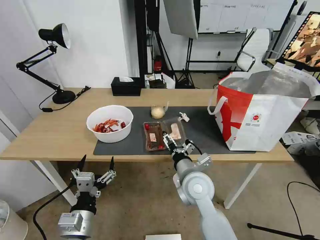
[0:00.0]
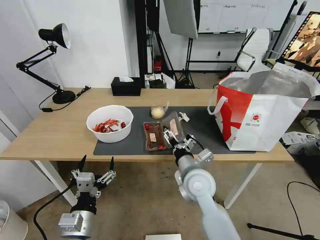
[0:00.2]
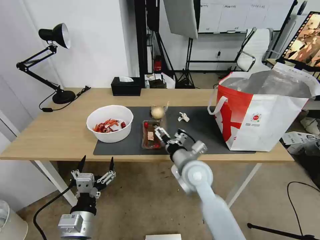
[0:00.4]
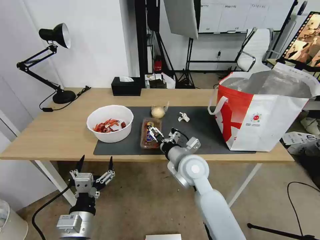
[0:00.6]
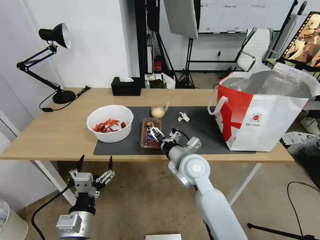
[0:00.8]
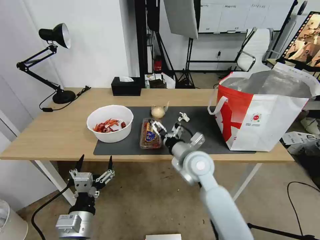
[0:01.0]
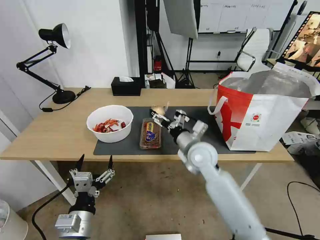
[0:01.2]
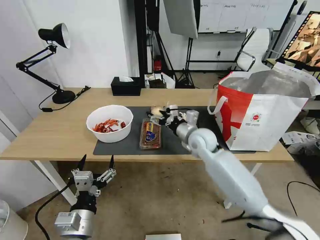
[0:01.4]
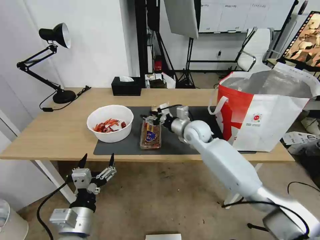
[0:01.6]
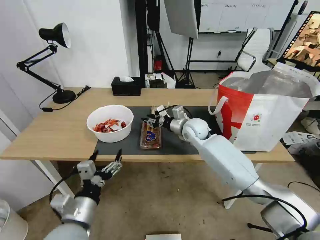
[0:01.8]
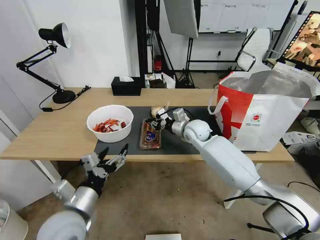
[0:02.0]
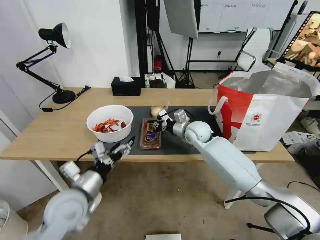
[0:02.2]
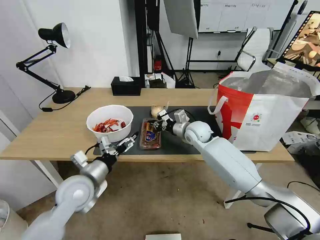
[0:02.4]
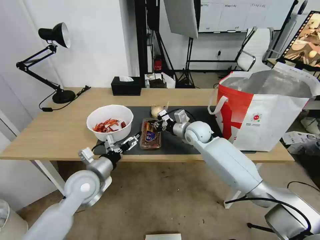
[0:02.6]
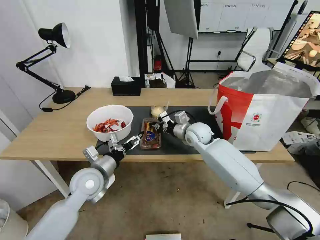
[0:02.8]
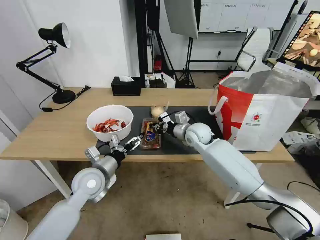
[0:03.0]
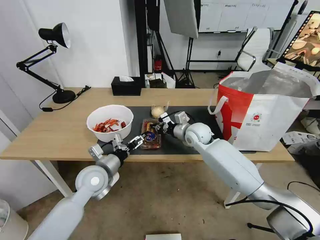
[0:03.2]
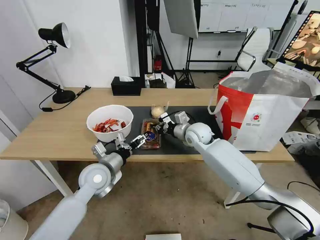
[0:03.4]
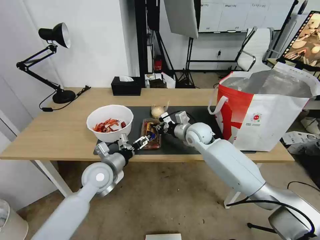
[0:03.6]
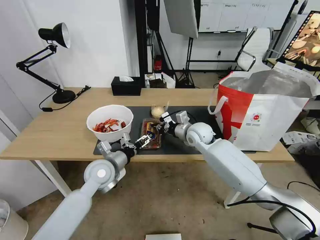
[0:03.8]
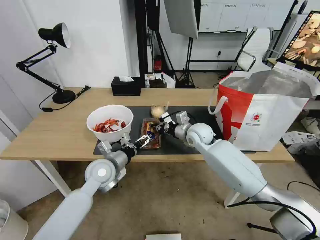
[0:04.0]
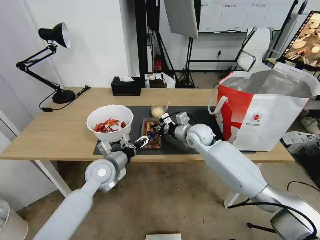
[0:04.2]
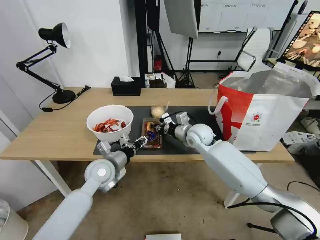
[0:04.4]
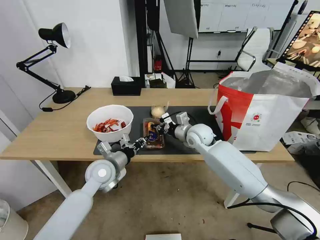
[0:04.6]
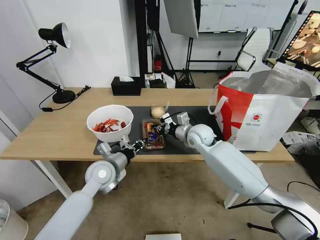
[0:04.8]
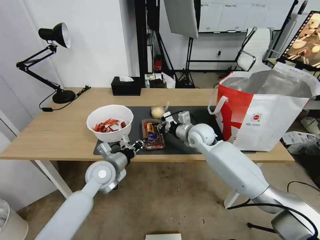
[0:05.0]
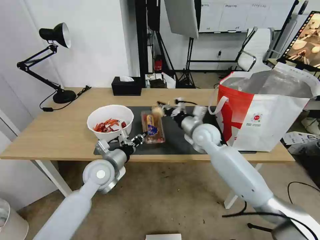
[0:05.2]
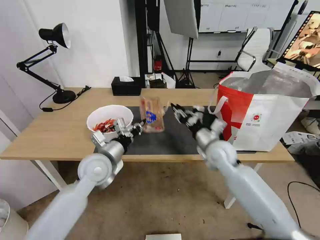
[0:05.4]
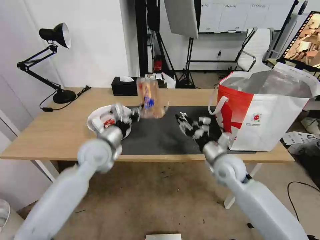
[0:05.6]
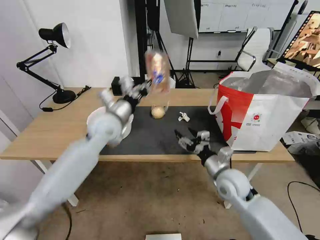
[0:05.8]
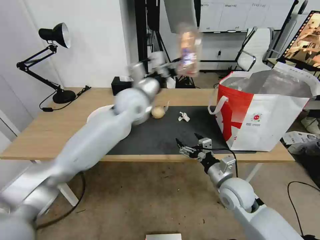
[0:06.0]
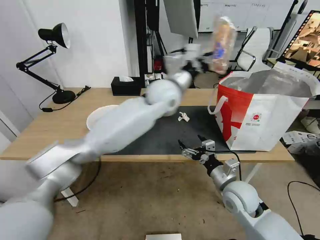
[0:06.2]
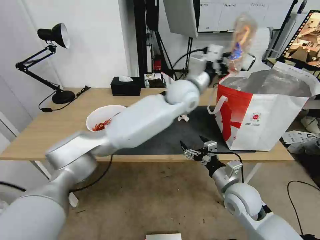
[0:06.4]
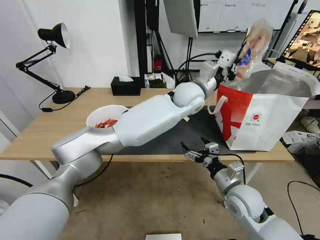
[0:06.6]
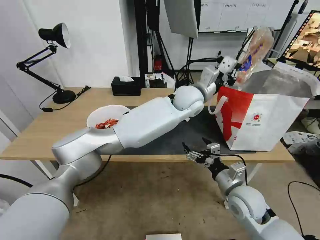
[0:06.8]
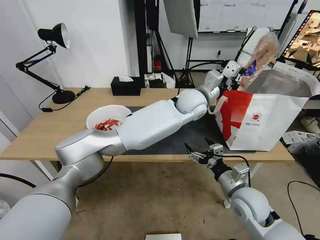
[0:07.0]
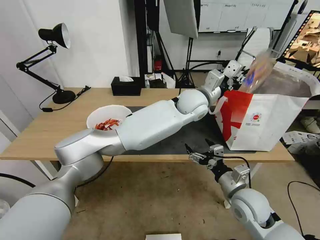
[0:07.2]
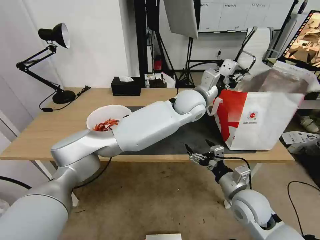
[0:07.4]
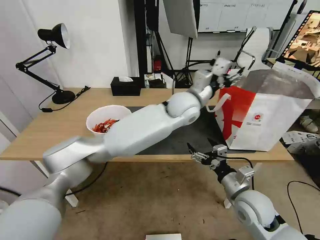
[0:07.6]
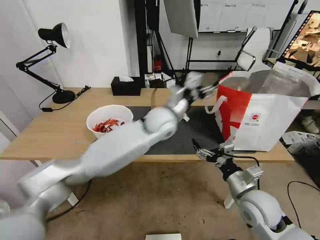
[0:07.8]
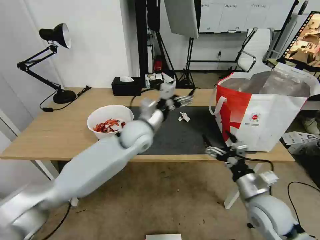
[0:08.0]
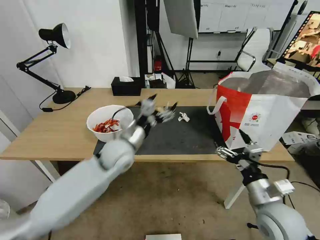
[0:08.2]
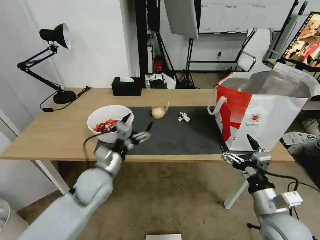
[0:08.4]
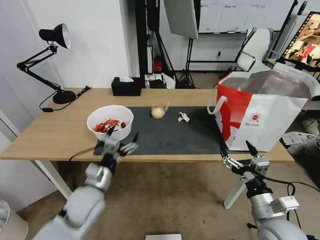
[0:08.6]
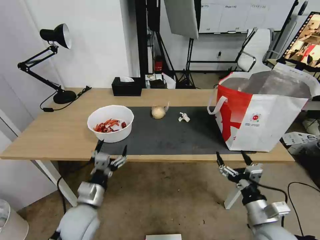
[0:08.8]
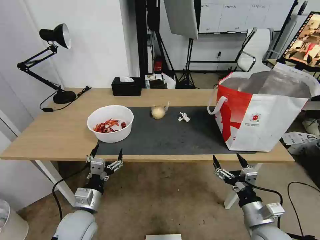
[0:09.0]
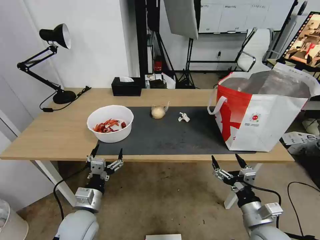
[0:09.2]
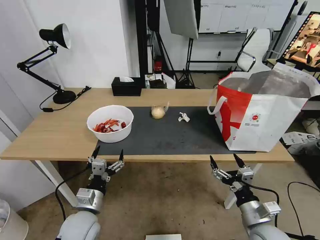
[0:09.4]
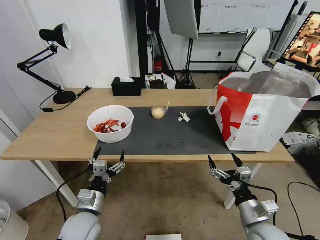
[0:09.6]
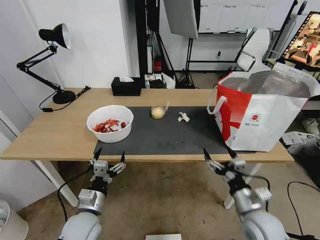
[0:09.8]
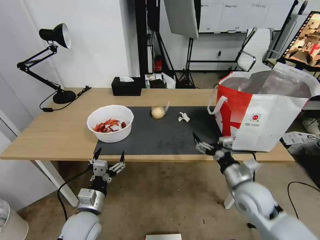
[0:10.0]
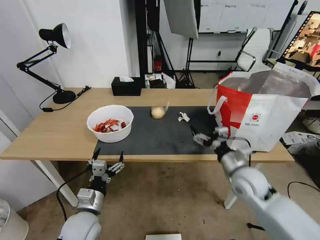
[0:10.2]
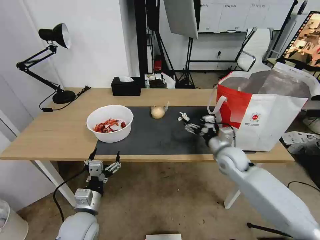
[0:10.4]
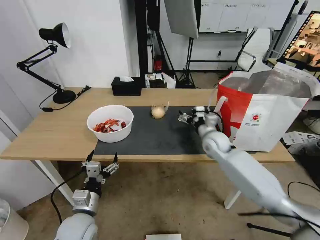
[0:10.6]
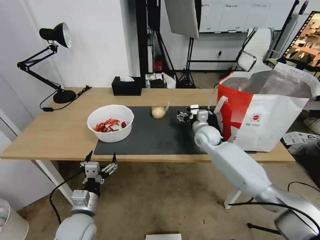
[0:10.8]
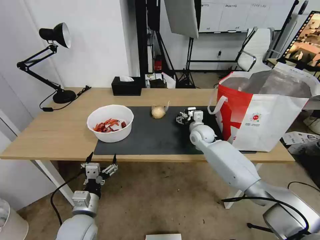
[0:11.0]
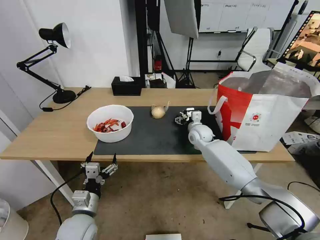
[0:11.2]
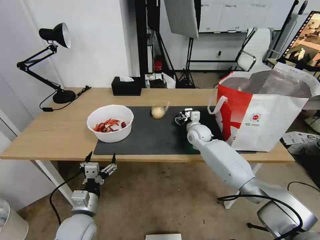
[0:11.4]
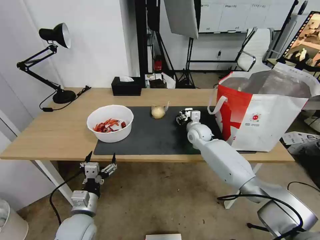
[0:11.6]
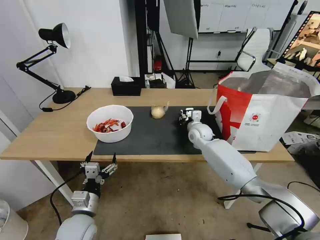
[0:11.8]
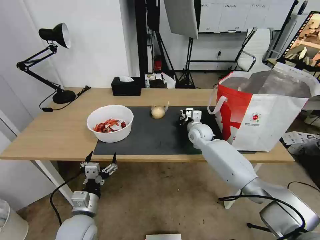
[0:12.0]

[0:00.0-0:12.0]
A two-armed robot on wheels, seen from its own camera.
Task of the whole recording: Pick up the trash from the table and place it into the takeout bag.
0.0 to 1.6 s: The right gripper moves forward, approximately 20 cm, and closes up.
1.6 to 3.0 s: The right gripper closes up. Meanwhile the left gripper is displaced forward by some 20 cm.
3.0 to 4.4 s: The left gripper closes.
4.4 to 6.0 s: The left gripper is displaced upward, forward and to the right by roughly 25 cm, and closes up, while the right gripper heads backward and to the right, covering roughly 20 cm, and opens.
6.0 to 7.6 s: The right gripper ends up approximately 5 cm from where it was. The left gripper goes roughly 15 cm to the right, and opens.
7.6 to 9.0 s: The right gripper is displaced backward by roughly 10 cm. Meanwhile the left gripper shifts about 50 cm to the left, backward and downward.
9.0 to 10.4 s: The right gripper shifts roughly 20 cm forward.
10.4 to 12.0 s: The right gripper heads forward and to the left, covering about 15 cm, and closes up.

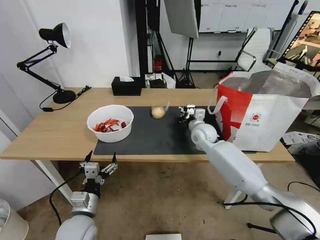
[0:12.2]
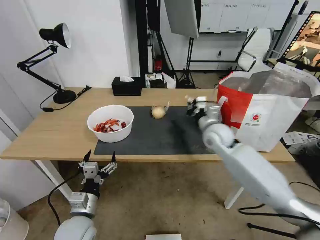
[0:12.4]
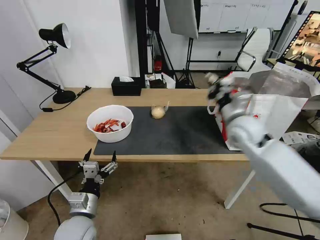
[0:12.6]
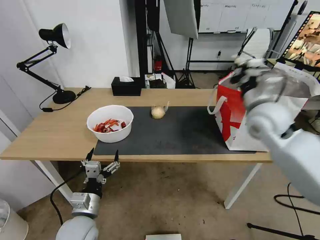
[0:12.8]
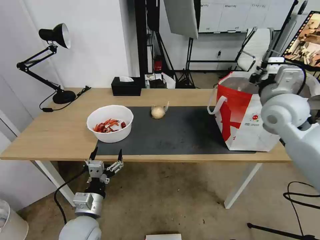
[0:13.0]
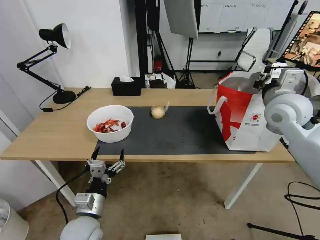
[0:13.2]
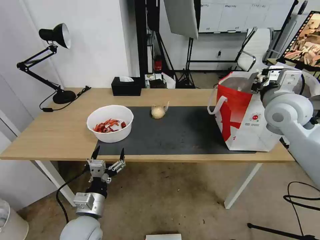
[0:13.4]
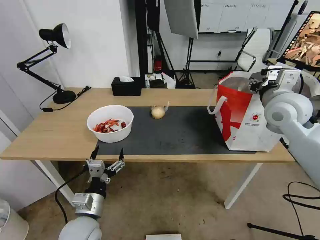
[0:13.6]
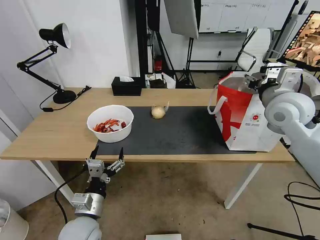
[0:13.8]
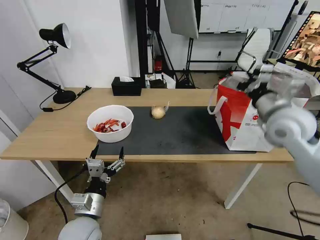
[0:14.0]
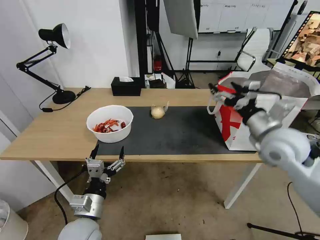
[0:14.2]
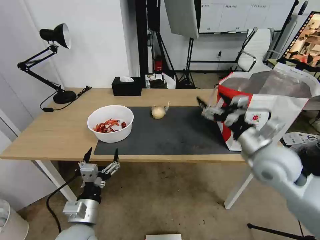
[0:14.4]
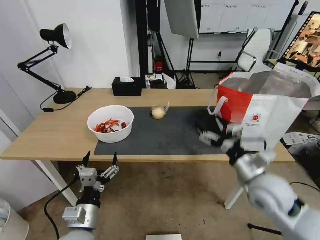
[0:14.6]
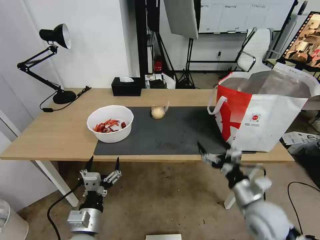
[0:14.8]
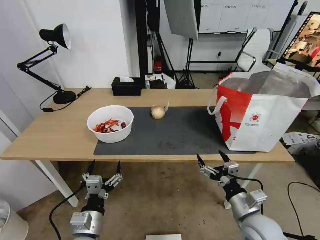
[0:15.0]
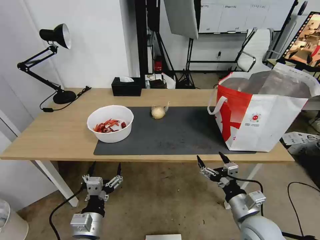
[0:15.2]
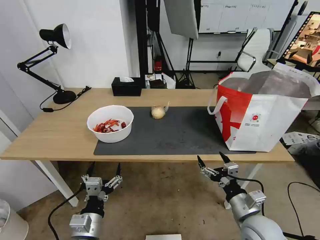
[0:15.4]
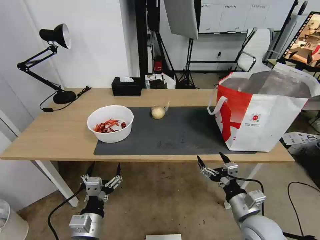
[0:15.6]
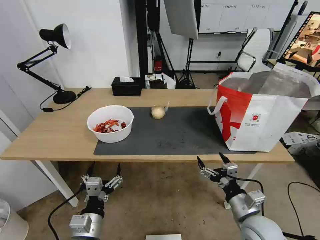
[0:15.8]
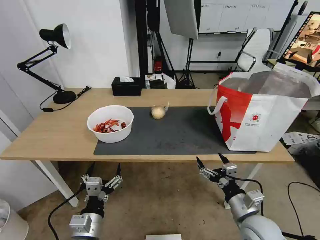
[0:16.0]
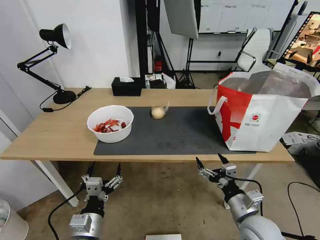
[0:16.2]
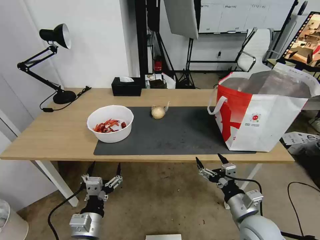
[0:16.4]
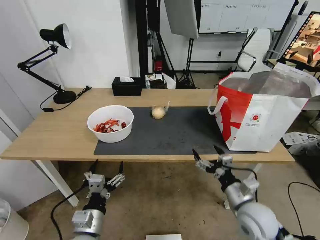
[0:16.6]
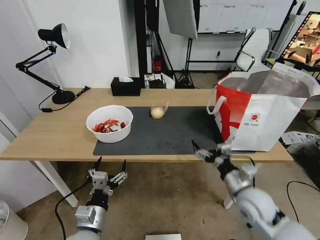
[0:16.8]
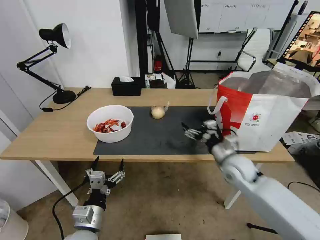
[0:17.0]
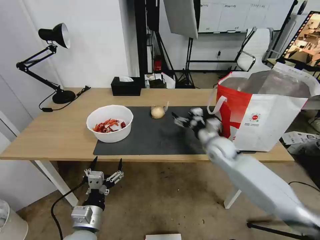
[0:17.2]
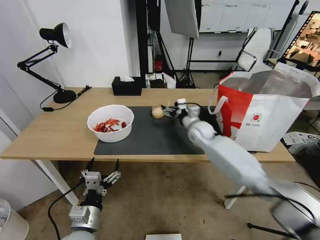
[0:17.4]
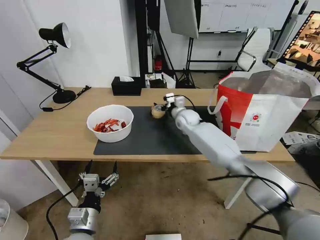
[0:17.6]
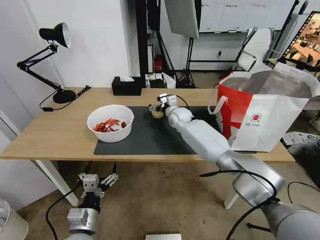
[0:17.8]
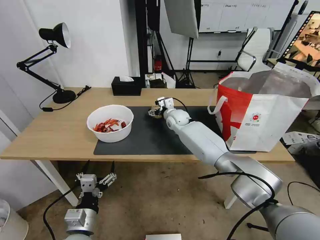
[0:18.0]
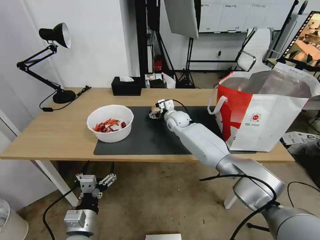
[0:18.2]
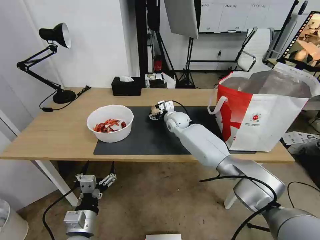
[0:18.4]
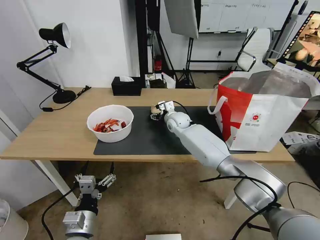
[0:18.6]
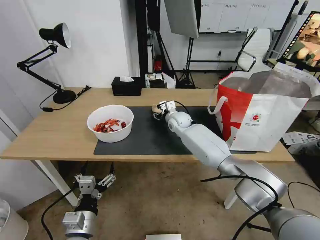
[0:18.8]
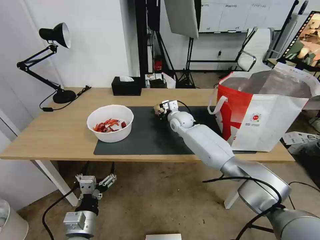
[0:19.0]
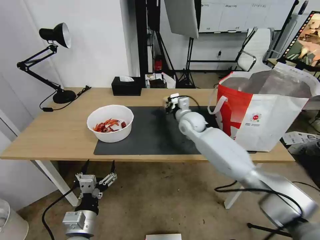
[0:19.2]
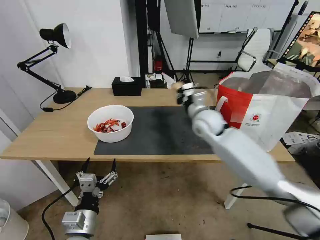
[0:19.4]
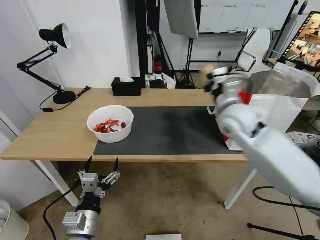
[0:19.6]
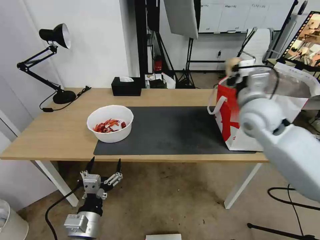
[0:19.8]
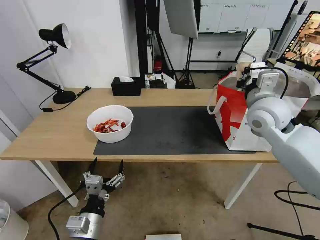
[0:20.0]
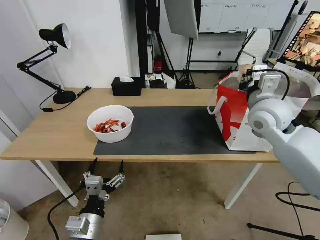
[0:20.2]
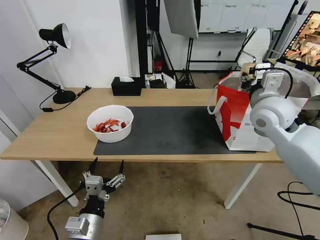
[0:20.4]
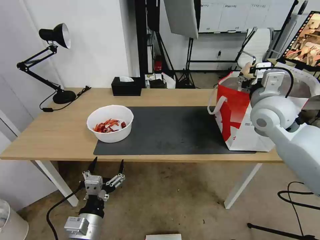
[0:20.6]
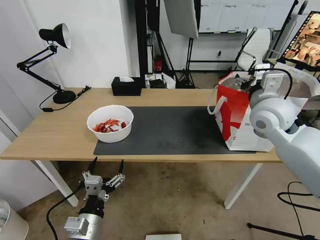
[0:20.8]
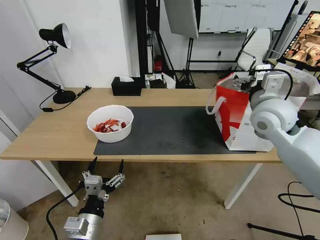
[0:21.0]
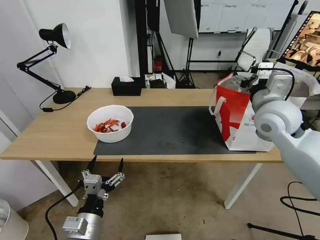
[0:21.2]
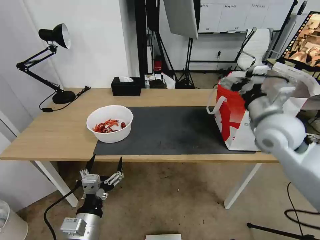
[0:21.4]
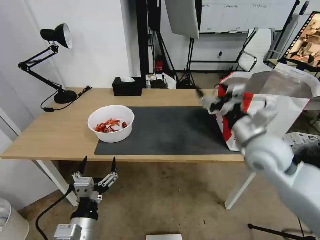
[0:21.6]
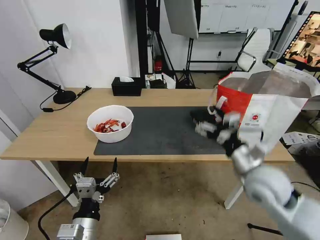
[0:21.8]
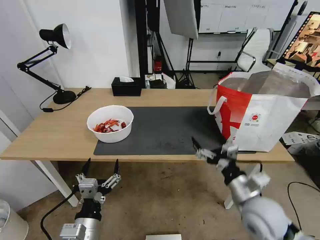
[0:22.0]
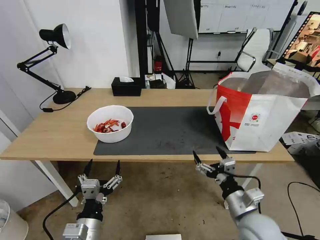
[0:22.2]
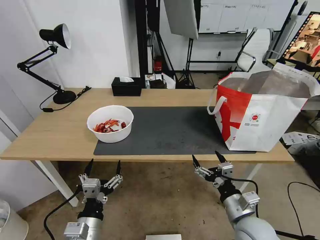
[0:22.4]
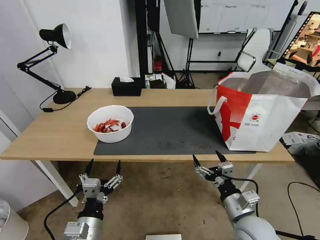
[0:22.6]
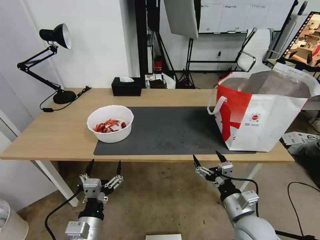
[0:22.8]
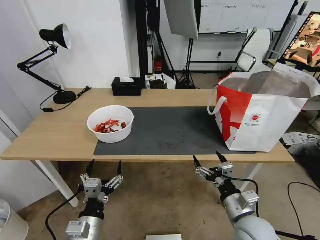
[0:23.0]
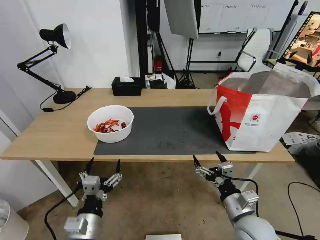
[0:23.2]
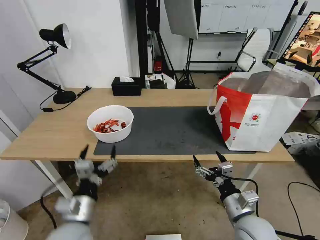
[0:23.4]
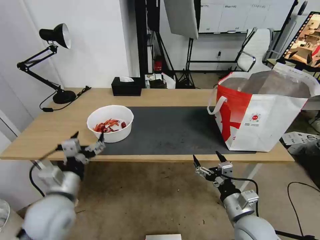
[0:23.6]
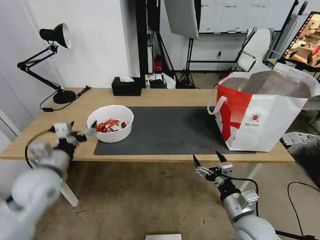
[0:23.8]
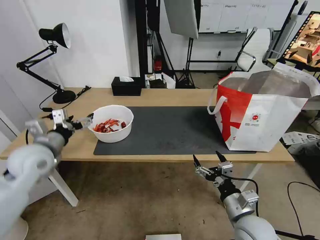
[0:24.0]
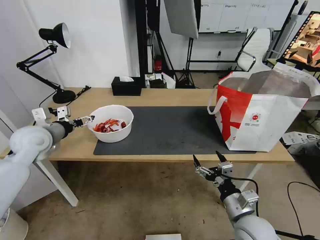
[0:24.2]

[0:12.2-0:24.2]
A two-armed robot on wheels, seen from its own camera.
Task of the whole recording: Pick up the trash from the table and place it into the takeout bag.
12.2 to 13.8 s: The right gripper shifts about 30 cm upward, to the right and backward, and opens up.
13.8 to 15.2 s: The left gripper changes place by approximately 5 cm. The right gripper goes roughly 35 cm downward and backward, and opens.
15.2 to 16.6 s: The grippers stay close to where they were, moving slightly.
16.6 to 18.2 s: The right gripper goes some 40 cm forward and to the left.
18.2 to 19.8 s: The right gripper is displaced upward, backward and to the right by roughly 30 cm, and closes up.
19.8 to 21.2 s: The right gripper opens.
21.2 to 22.6 s: The right gripper heads downward and backward, covering roughly 30 cm.
22.6 to 24.2 s: The left gripper travels forward, to the left and upward by some 35 cm.
